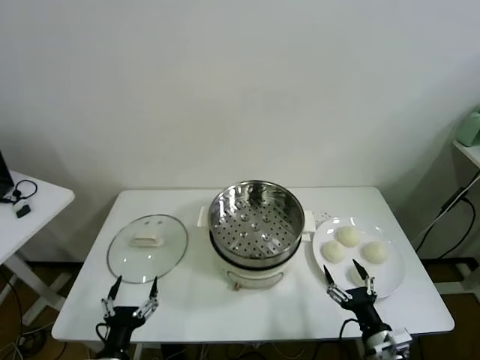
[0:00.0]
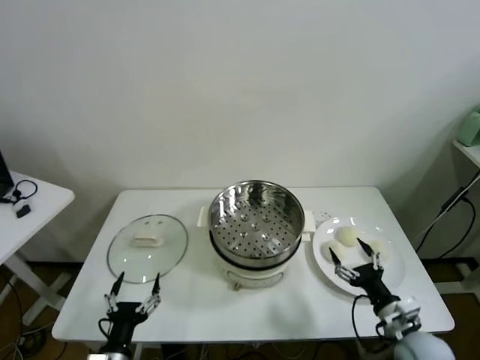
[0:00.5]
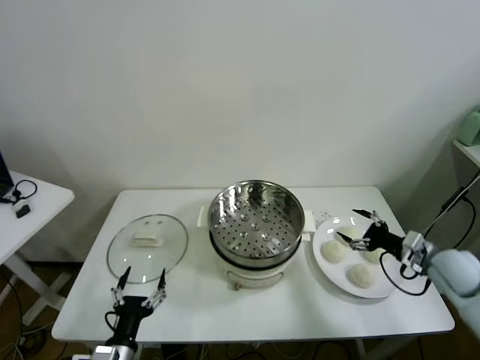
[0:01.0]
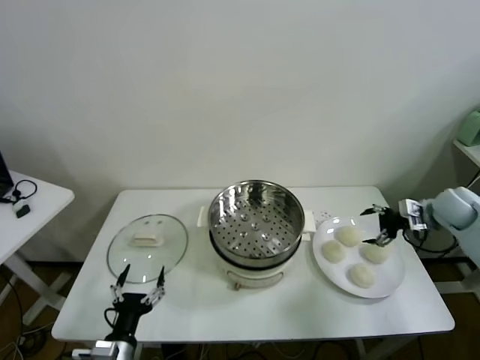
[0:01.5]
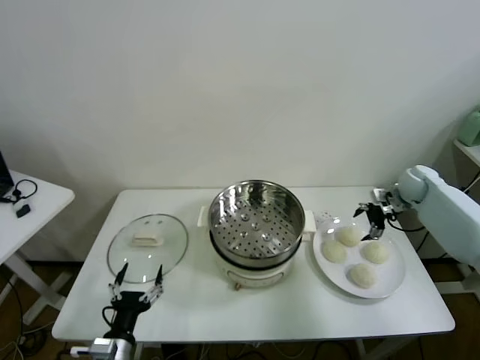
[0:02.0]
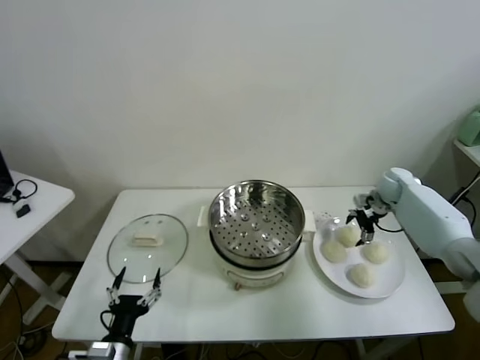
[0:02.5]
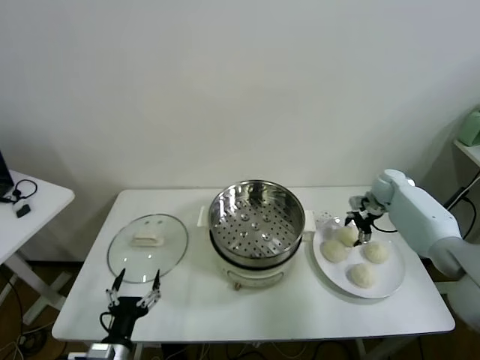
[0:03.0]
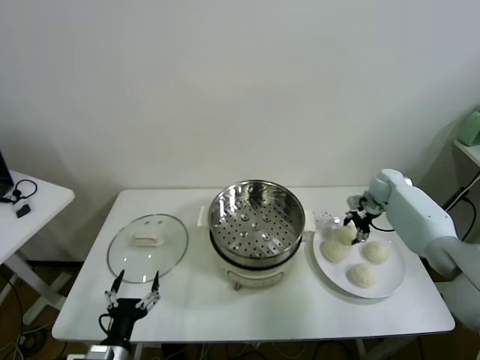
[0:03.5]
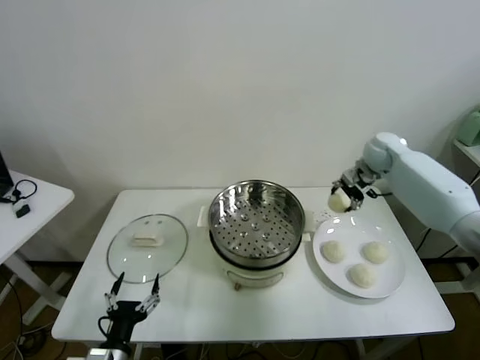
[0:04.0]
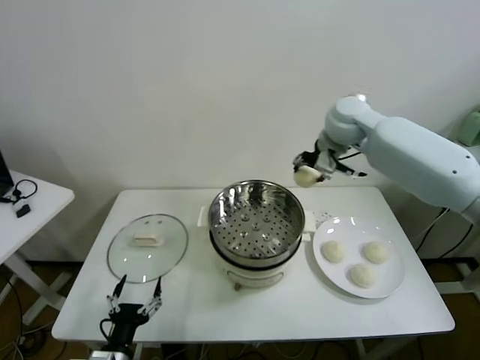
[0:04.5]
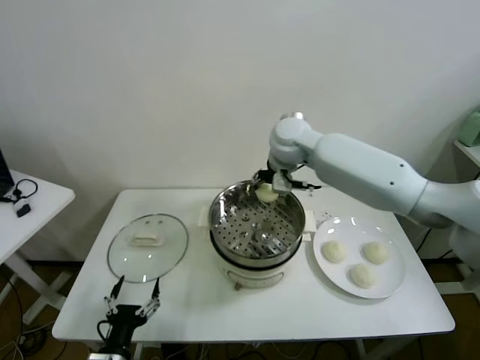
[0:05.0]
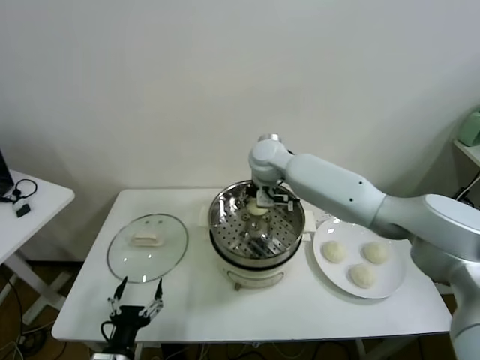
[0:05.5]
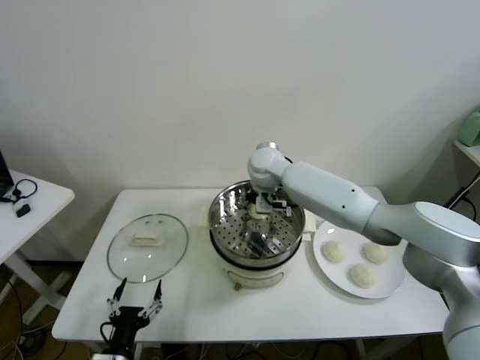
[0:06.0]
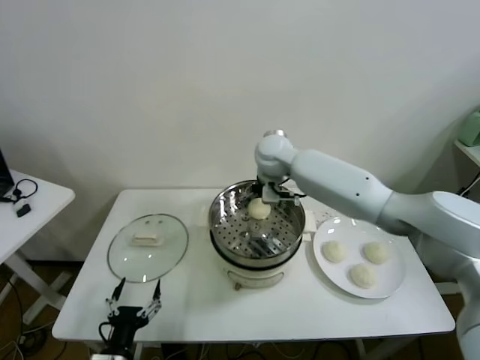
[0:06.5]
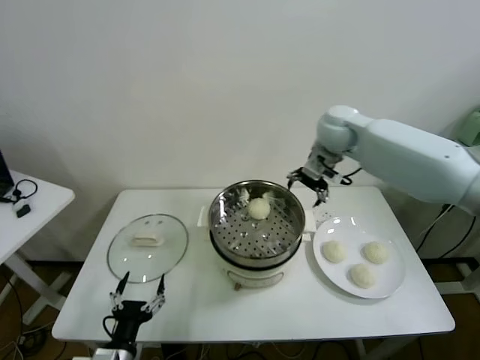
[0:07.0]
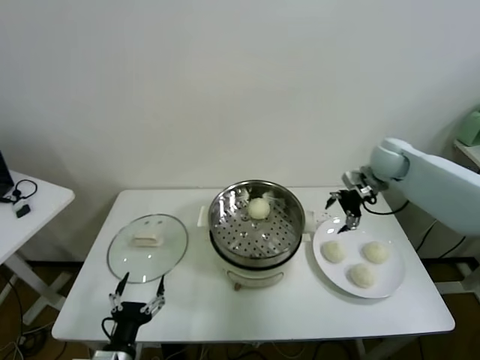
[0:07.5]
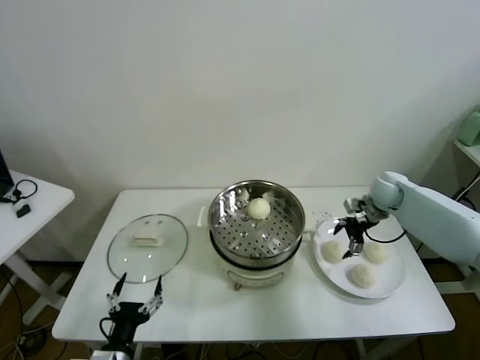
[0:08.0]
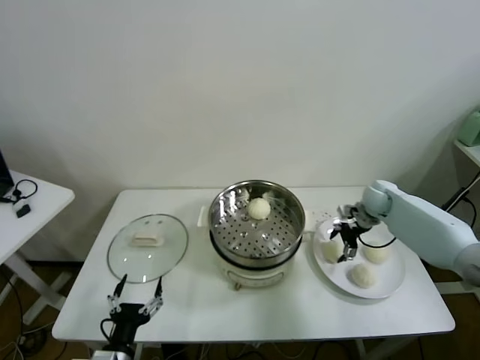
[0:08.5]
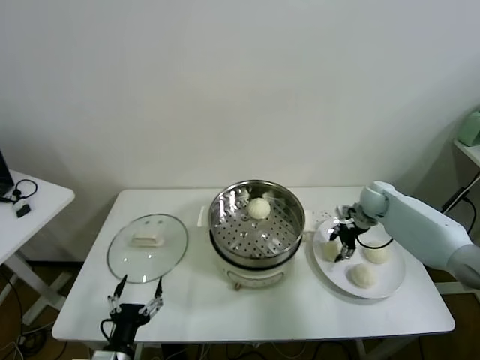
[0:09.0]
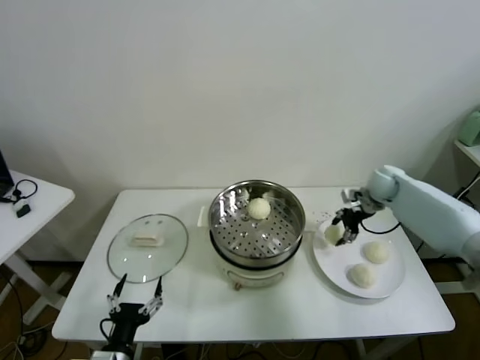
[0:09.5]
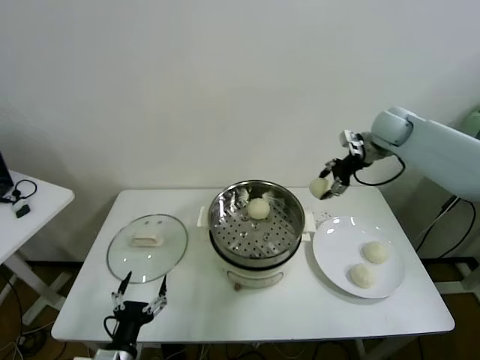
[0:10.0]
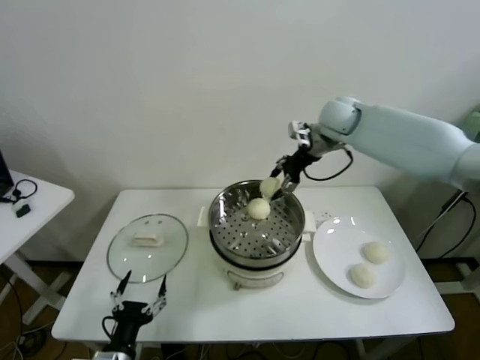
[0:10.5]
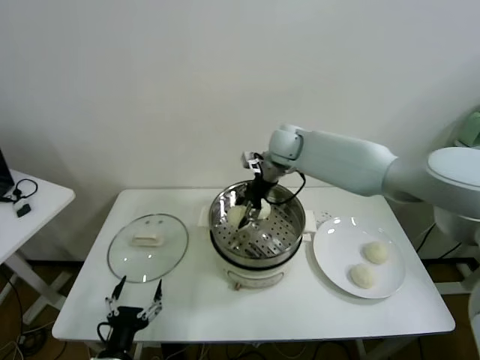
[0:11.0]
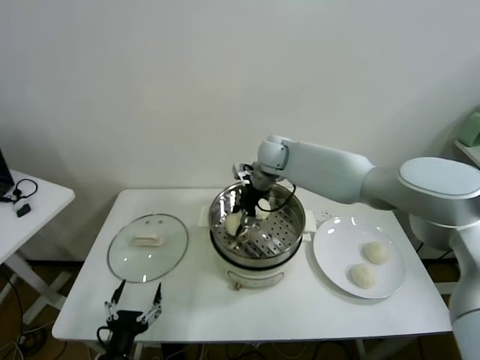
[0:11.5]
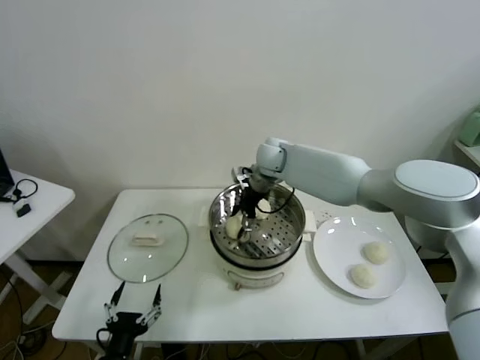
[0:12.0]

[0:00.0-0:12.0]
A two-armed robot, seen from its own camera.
Task of the whole recording: take steamed baozi put them in steamer.
Step, 0:00.0 to 0:03.0: Grasp the baozi in the plate with right gripper.
Step, 0:03.5 to 0:06.0: Place the baozi on the steamer with right gripper.
Step, 0:06.5 to 0:08.5: Grasp the baozi in the plate with right gripper.
0:02.0 to 0:04.0: The right gripper is displaced upward and to the left by approximately 15 cm, and closes up.
0:04.0 to 0:06.0: The right gripper heads to the left, covering some 30 cm, and opens.
0:06.0 to 0:08.0: The right gripper travels to the right by roughly 35 cm.
0:08.0 to 0:10.0: The right gripper travels upward by approximately 20 cm, and closes.
0:10.0 to 0:12.0: The right gripper is displaced to the left by about 25 cm, and opens up.

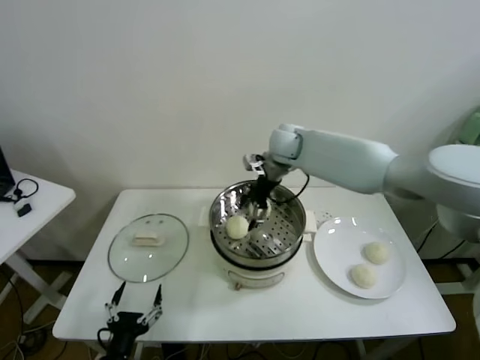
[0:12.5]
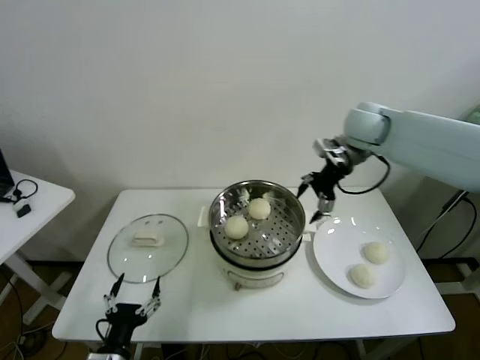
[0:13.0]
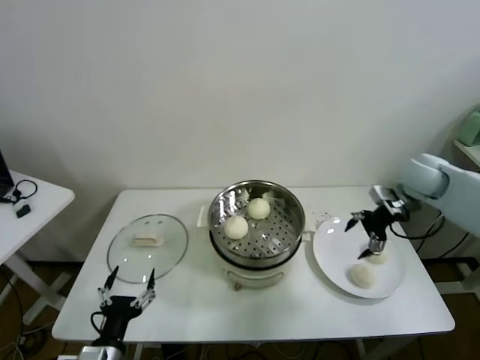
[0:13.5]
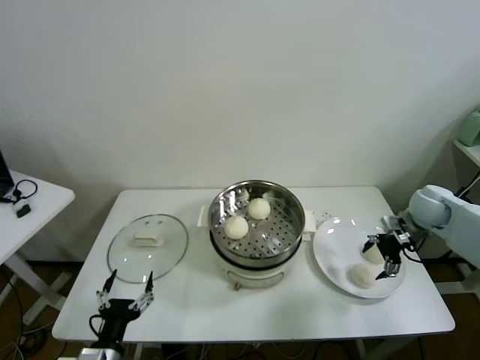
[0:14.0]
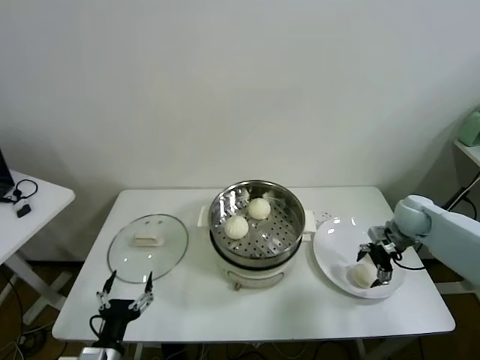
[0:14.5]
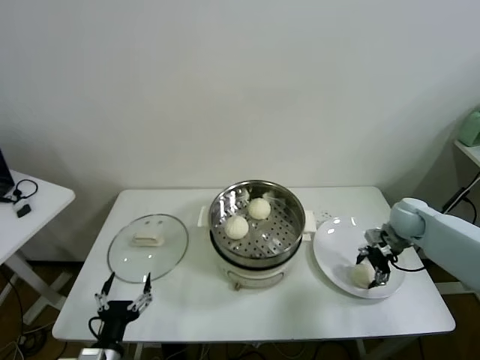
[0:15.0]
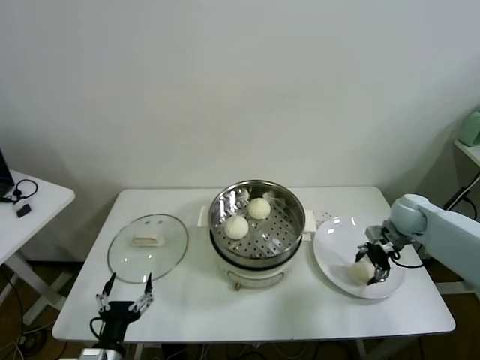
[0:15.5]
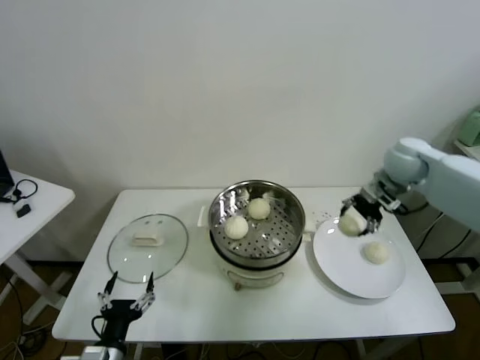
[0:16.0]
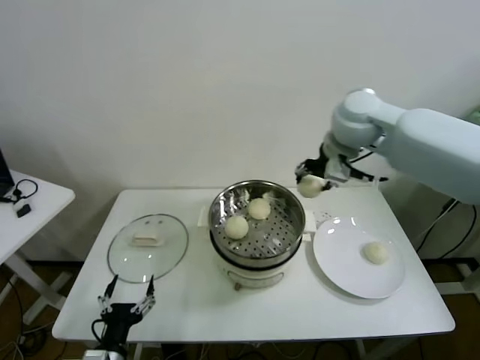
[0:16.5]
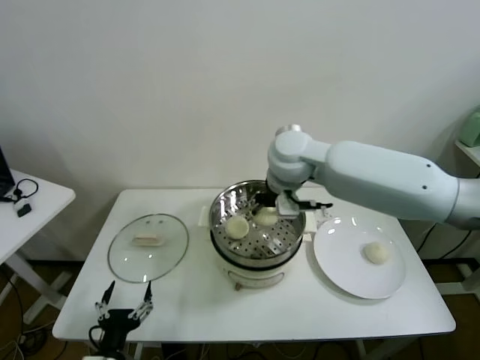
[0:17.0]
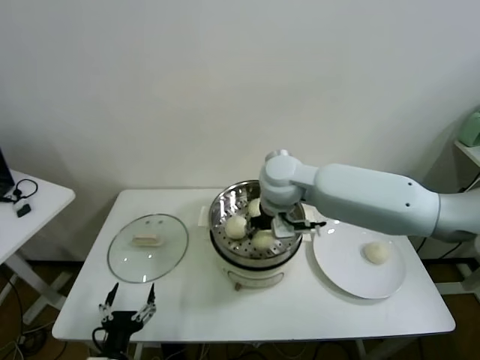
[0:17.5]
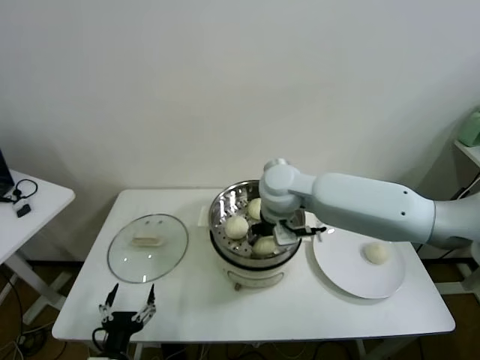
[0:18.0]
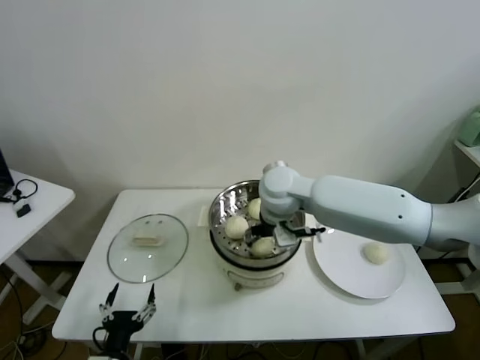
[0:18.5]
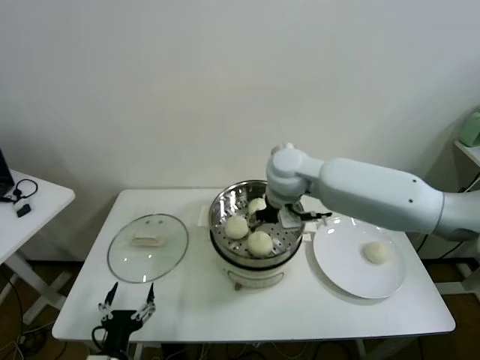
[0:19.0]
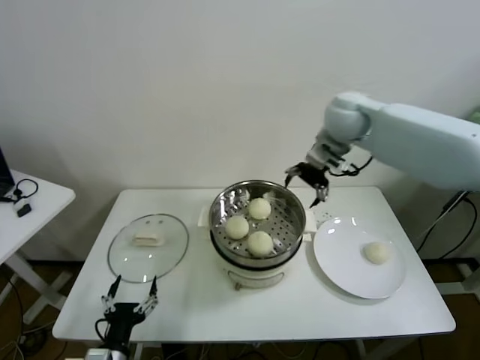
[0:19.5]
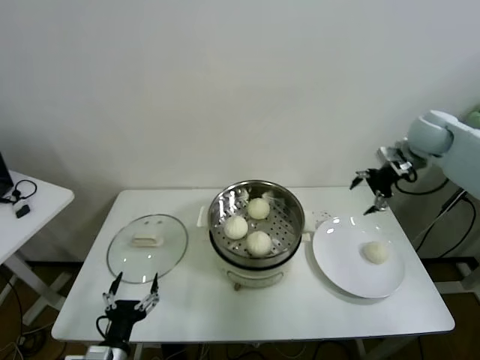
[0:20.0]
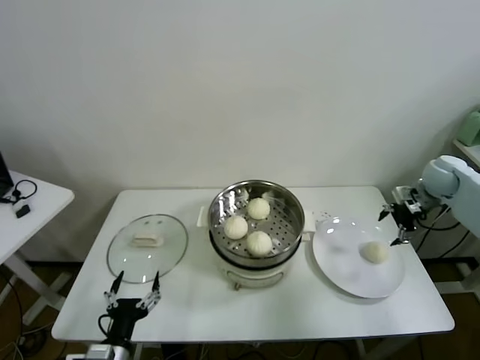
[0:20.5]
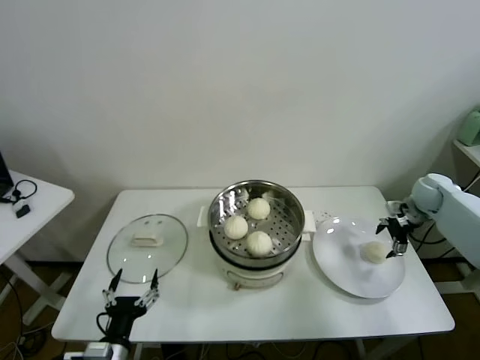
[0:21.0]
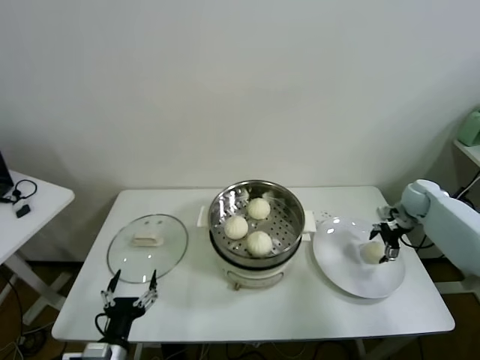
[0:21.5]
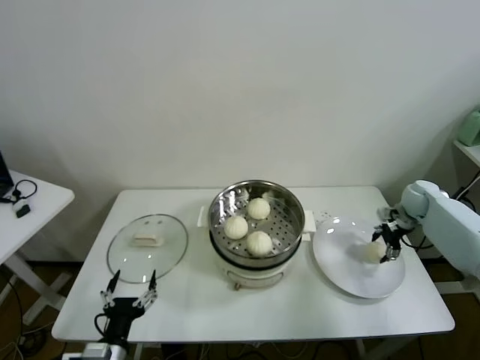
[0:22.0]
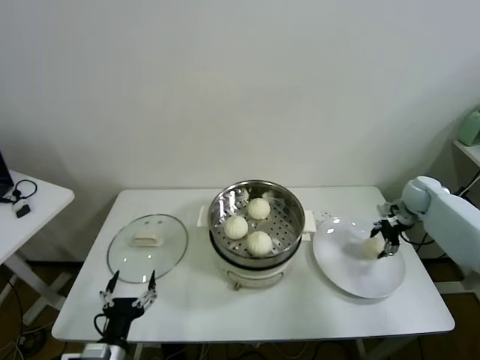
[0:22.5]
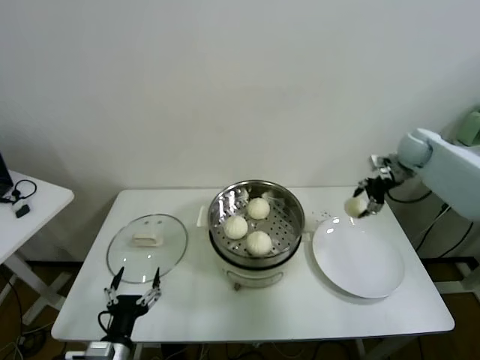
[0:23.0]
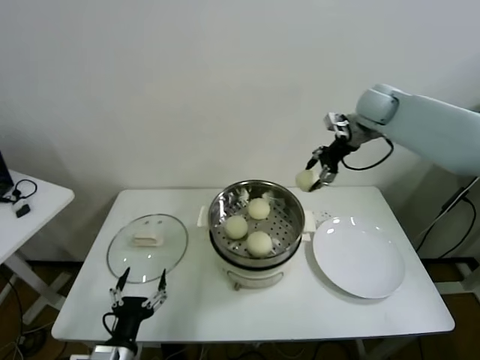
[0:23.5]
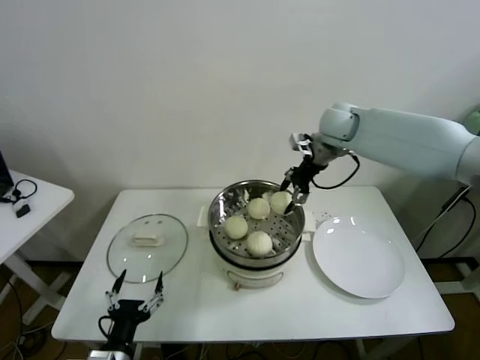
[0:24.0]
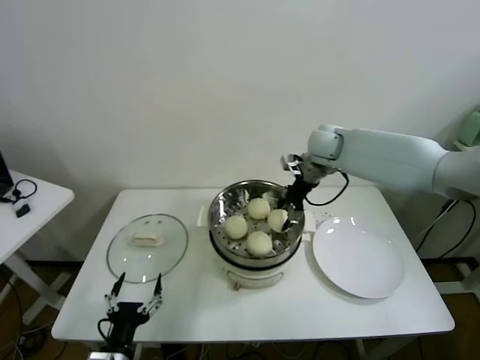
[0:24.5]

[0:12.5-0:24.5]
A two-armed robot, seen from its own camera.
Task of the whole recording: take steamed baozi put them in steamer.
Step, 0:12.5 to 0:15.0: Grasp the baozi in the plate with right gripper.
Step, 0:15.5 to 0:18.5: Place the baozi on the steamer with right gripper.
Step, 0:19.0 to 0:21.5: Grasp the baozi in the plate with right gripper.
0:12.5 to 0:14.5: The right gripper goes about 35 cm to the right and downward.
0:14.5 to 0:16.5: The right gripper is displaced upward and to the left by some 35 cm, and closes.
0:16.5 to 0:18.5: The right gripper heads downward and to the left, covering some 20 cm, and opens its fingers.
0:18.5 to 0:20.5: The right gripper heads to the right, covering approximately 40 cm.
0:20.5 to 0:22.5: The right gripper heads downward, covering some 10 cm, and closes its fingers.
0:22.5 to 0:24.5: The right gripper is displaced to the left and upward by some 30 cm.

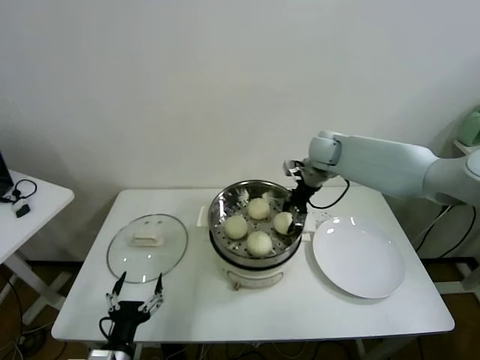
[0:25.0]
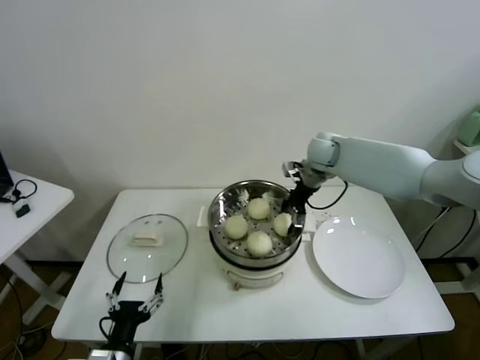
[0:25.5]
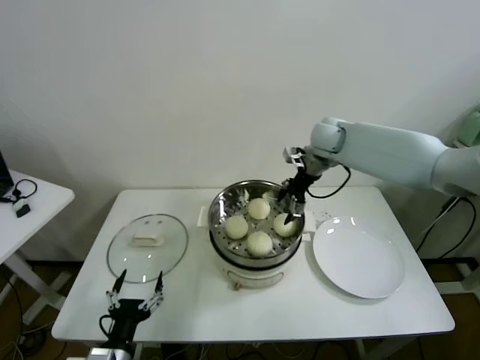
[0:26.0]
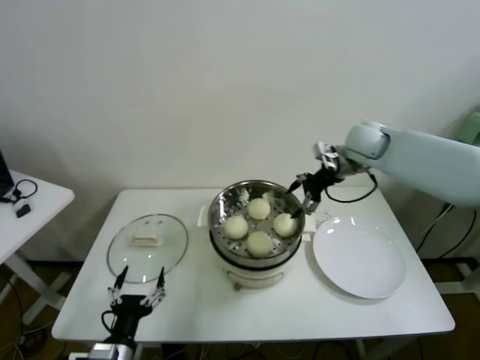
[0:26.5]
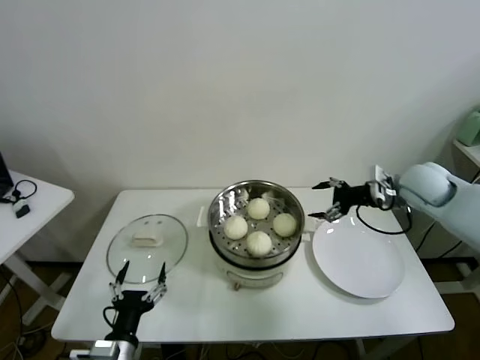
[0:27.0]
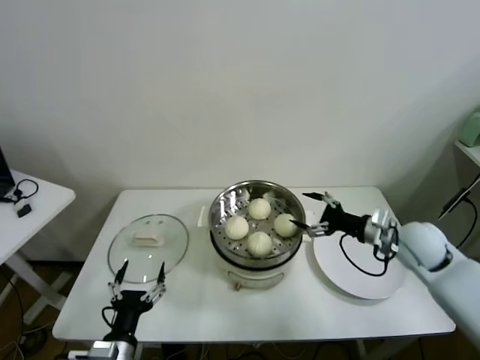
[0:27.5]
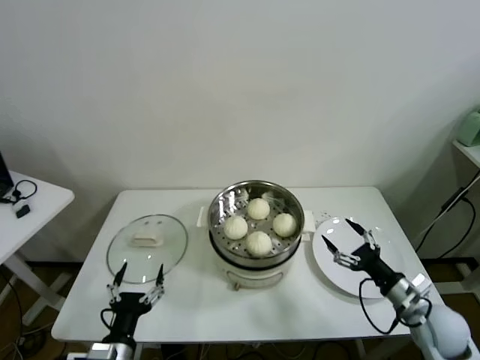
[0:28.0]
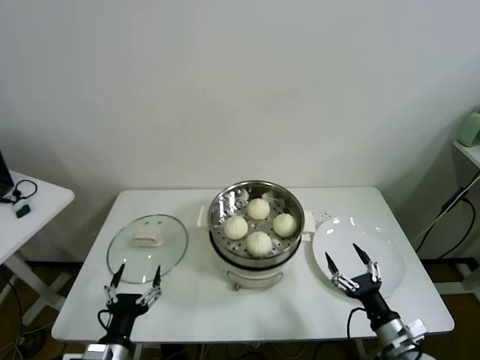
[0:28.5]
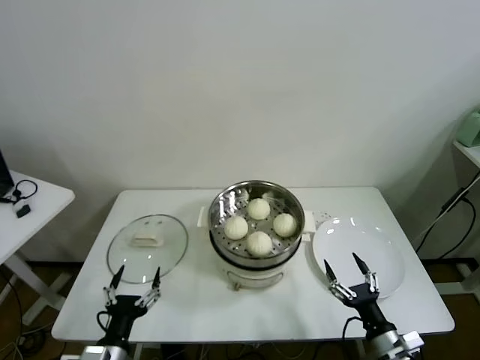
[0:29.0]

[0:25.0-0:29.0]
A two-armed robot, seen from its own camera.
Task of the whole recording: take steamed baozi put them in steamer.
0:25.0 to 0:27.0: The right gripper is displaced to the right and backward by roughly 20 cm, and opens up.
0:27.0 to 0:29.0: The right gripper is displaced backward and downward by some 40 cm.